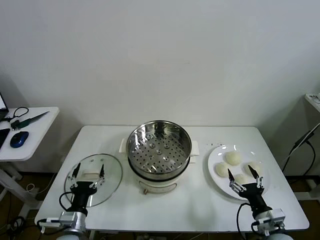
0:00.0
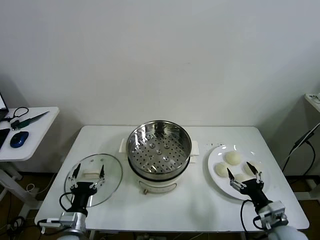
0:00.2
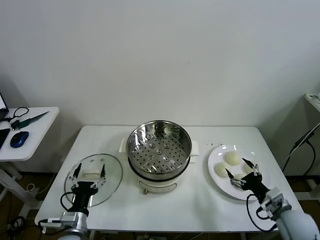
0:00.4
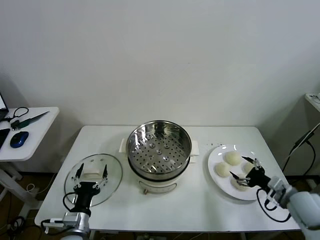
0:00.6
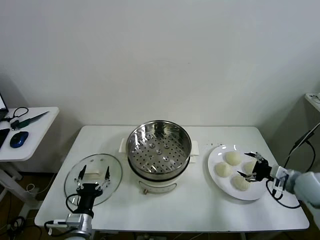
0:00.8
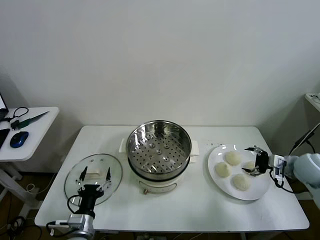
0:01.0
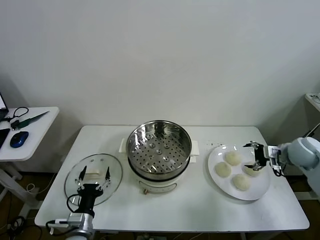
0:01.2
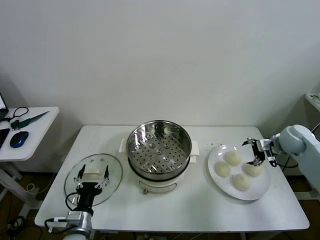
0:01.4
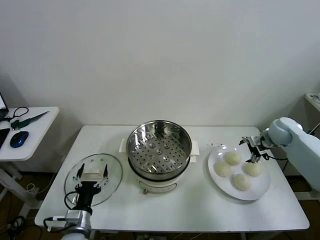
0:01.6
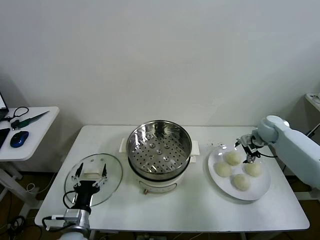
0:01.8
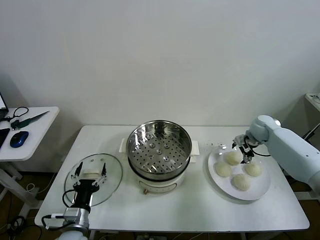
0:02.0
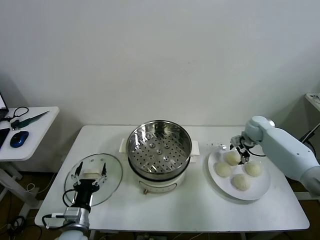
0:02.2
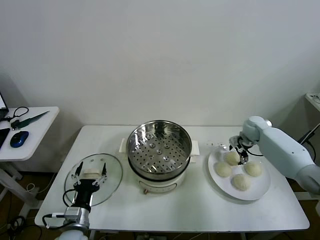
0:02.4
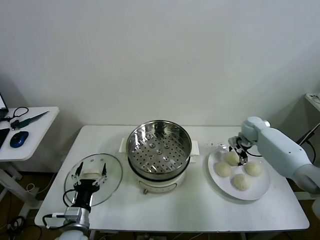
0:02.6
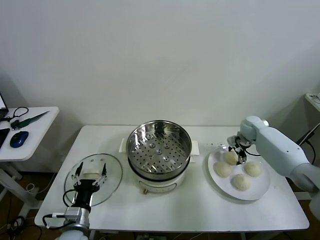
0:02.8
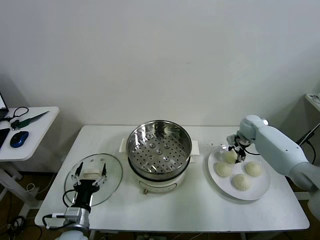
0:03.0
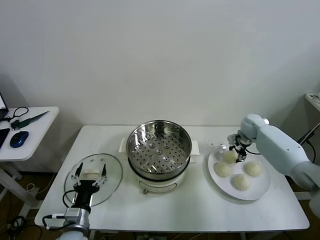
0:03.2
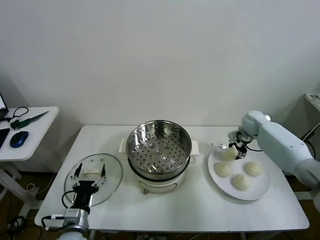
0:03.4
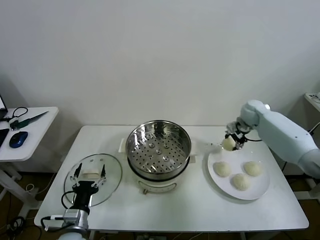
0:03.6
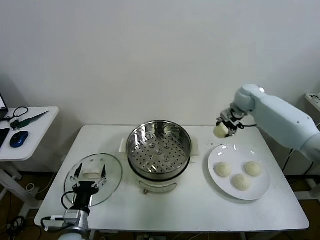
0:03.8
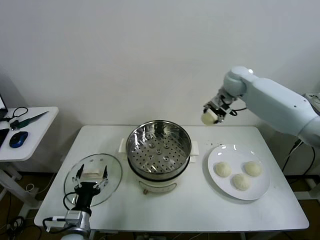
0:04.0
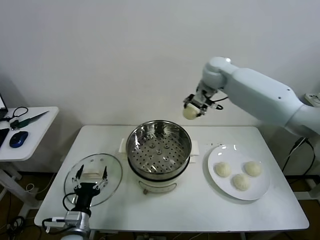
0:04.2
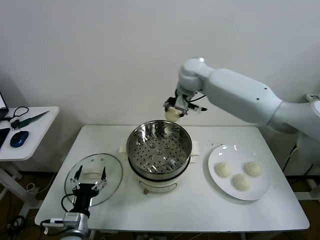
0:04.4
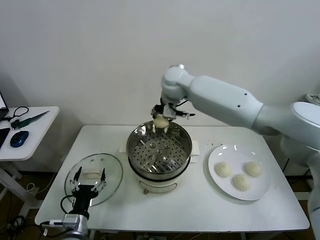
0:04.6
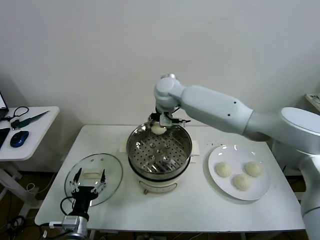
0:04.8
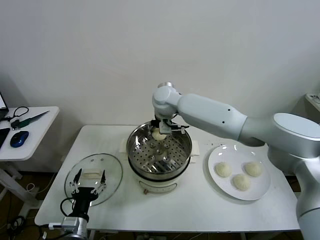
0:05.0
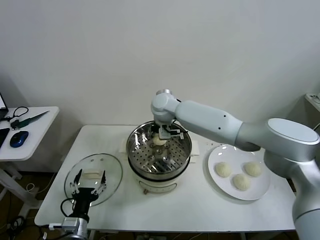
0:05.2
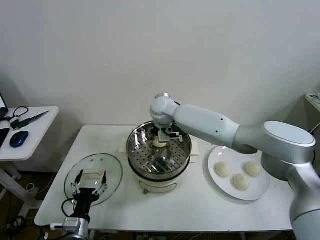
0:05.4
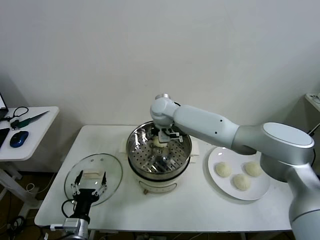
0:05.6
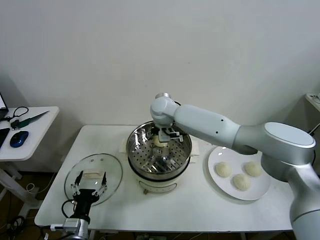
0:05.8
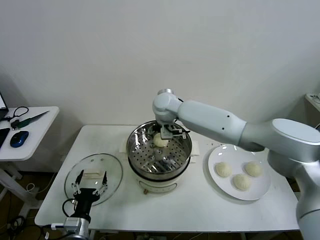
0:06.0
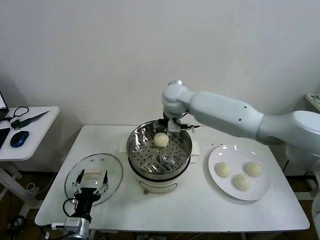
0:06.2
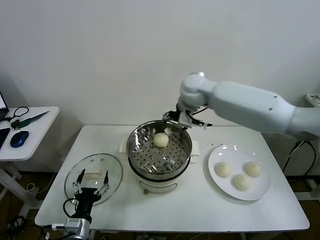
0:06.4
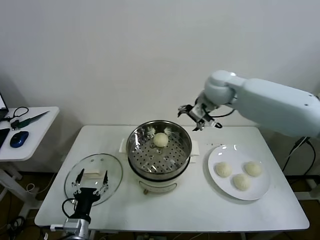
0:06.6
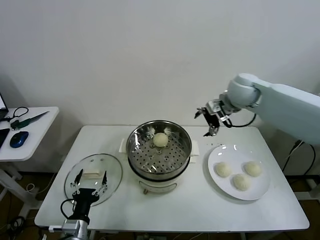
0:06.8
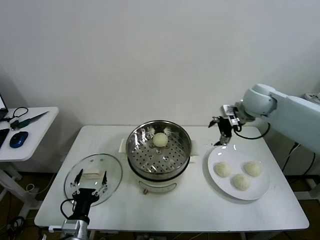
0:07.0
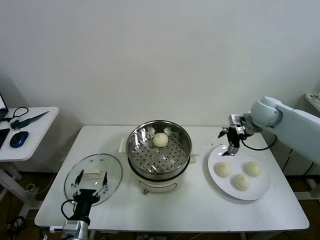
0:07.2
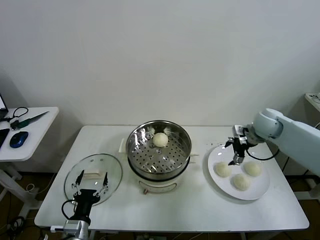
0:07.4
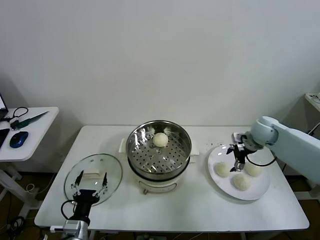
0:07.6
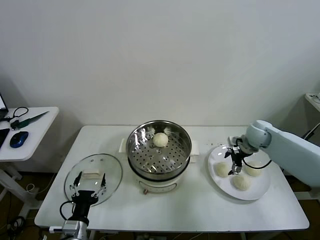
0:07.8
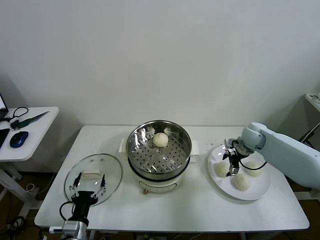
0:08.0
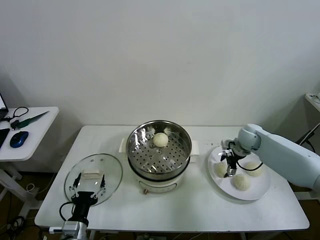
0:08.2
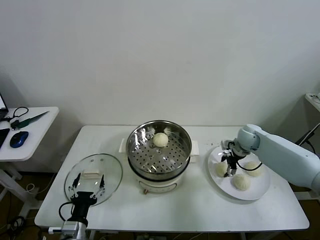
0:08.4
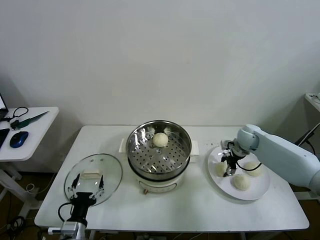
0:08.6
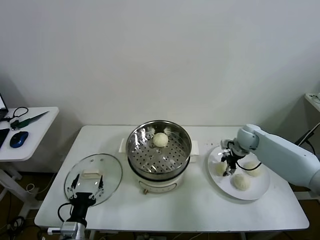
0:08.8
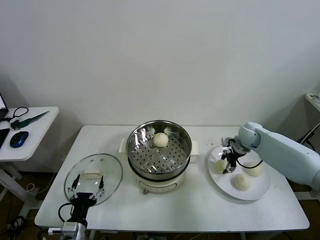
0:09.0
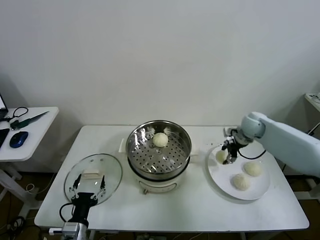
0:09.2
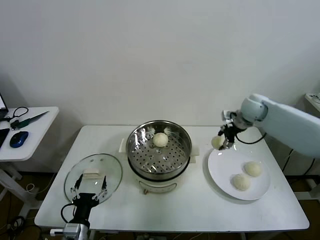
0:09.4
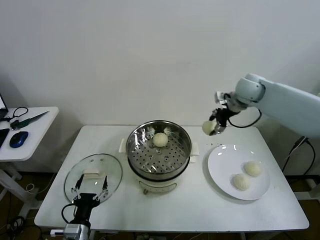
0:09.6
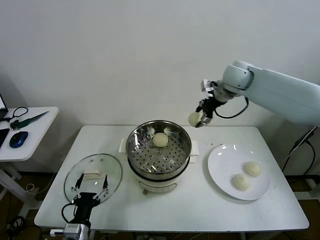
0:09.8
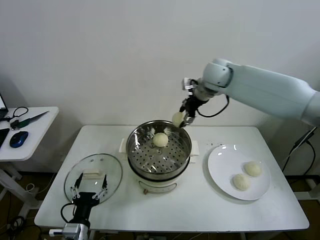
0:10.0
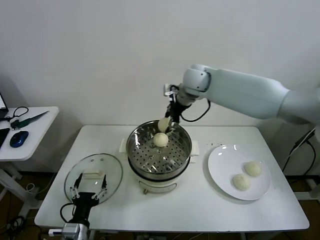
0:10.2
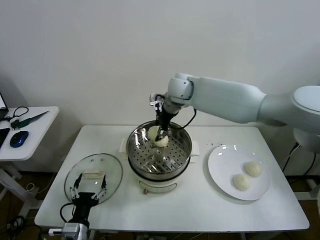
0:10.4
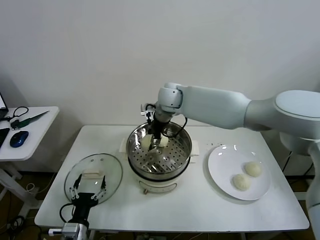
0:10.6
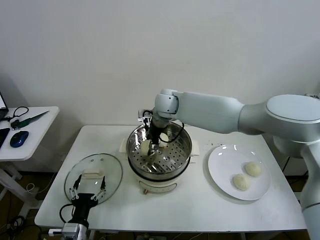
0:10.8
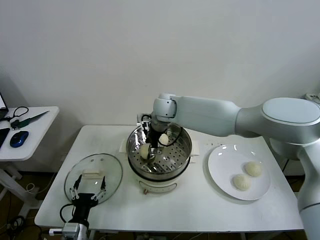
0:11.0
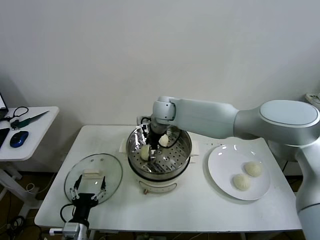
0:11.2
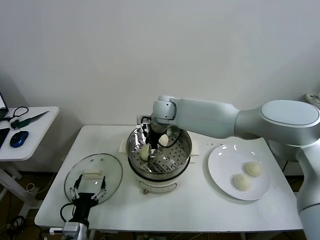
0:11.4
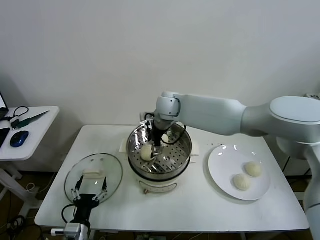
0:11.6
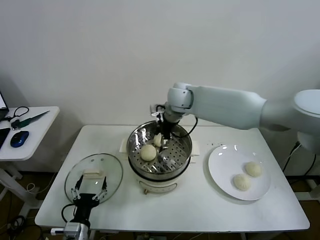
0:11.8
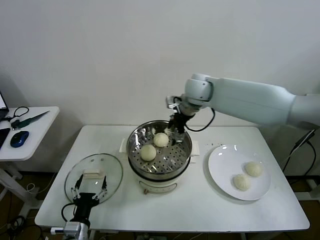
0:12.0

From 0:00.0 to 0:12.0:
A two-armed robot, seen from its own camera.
Task of the whole recording: take steamed baozi put them in steamer then cover it.
Step, from 0:00.0 to 0:03.0: Grasp the baozi in the plate with right gripper.
Step, from 0:03.2 to 0:05.6: Place the baozi on the steamer with right gripper.
Step, from 0:06.0 to 0:08.4: Grasp the baozi in the plate with right gripper.
Step, from 0:08.6 to 0:11.4: Place the baozi on the steamer with right gripper.
From 0:01.6 to 0:03.0: The right gripper goes roughly 5 cm forward, and closes up.
From 0:03.0 to 0:04.4: The right gripper goes about 40 cm to the left and upward.
From 0:04.4 to 0:06.0: The right gripper goes approximately 5 cm downward, and opens.
From 0:06.0 to 0:07.6: The right gripper is displaced to the right by some 35 cm.
From 0:07.6 to 0:09.0: The right gripper closes its fingers.
From 0:09.0 to 0:10.4: The right gripper moves to the left and upward, about 35 cm.
From 0:10.4 to 0:12.0: The right gripper moves to the right, some 10 cm, and opens up.

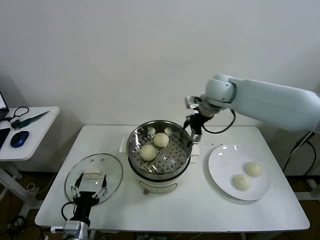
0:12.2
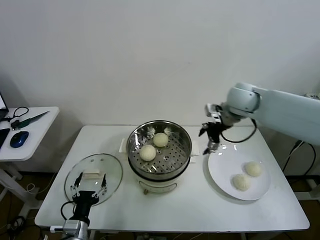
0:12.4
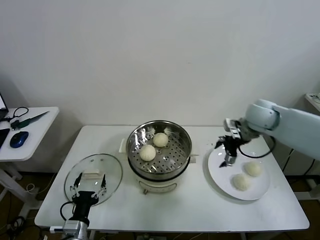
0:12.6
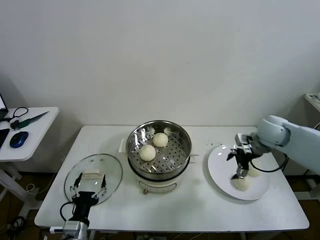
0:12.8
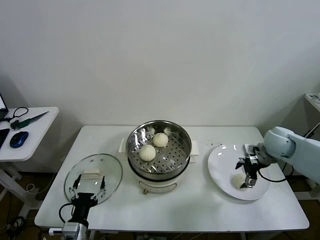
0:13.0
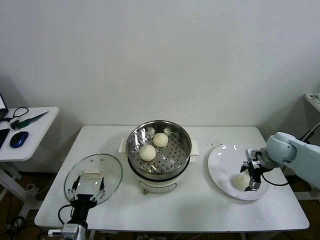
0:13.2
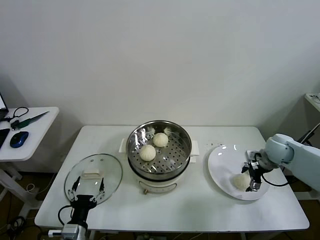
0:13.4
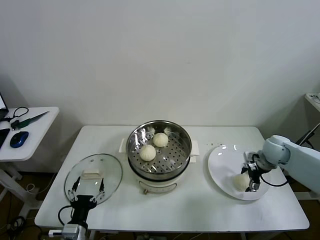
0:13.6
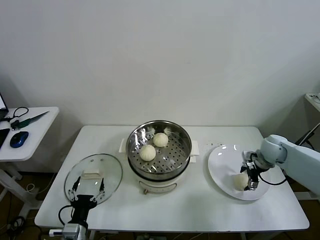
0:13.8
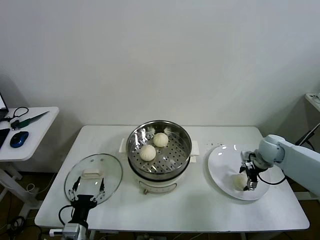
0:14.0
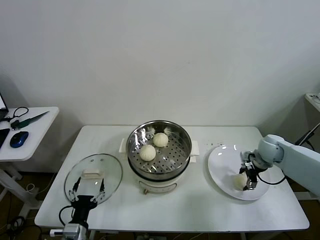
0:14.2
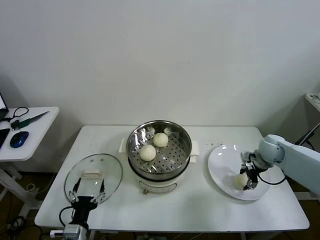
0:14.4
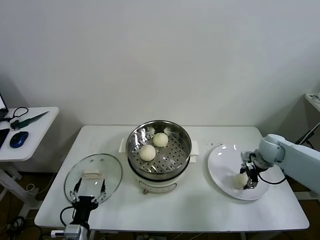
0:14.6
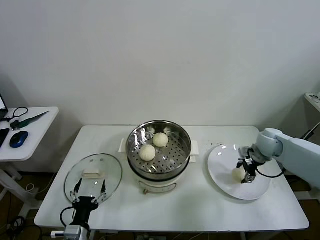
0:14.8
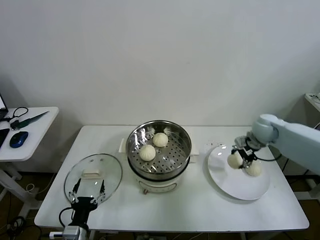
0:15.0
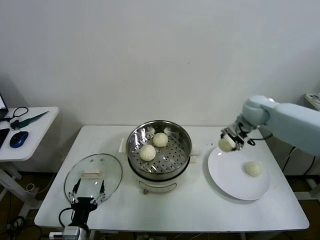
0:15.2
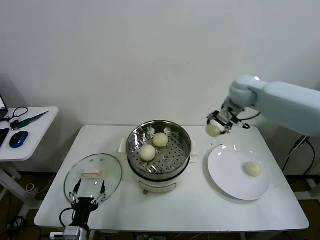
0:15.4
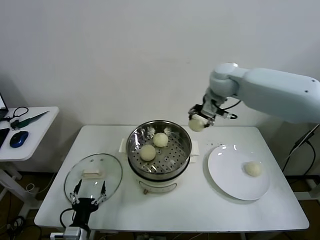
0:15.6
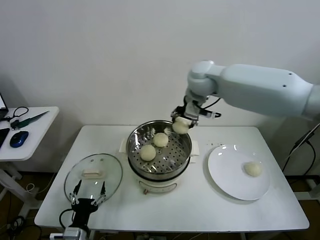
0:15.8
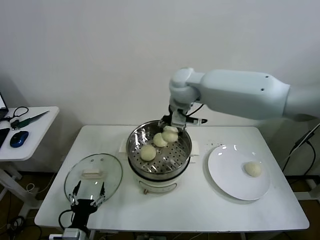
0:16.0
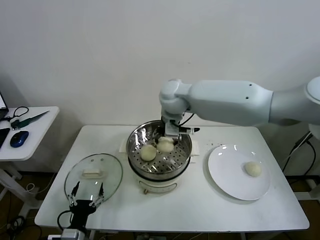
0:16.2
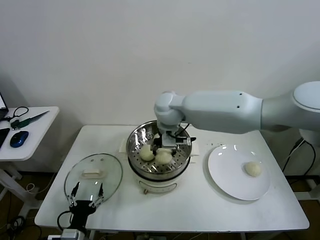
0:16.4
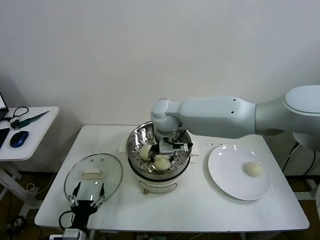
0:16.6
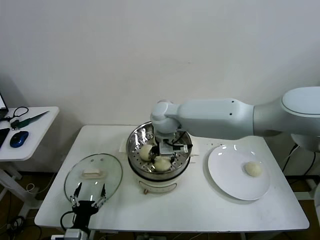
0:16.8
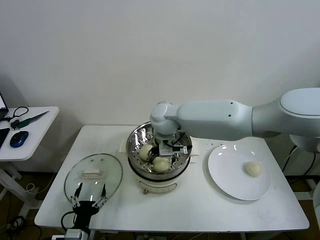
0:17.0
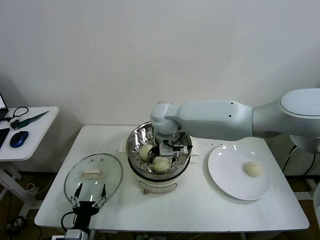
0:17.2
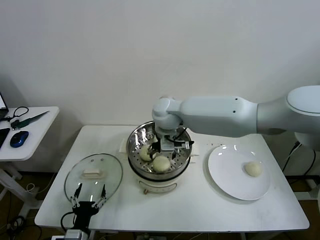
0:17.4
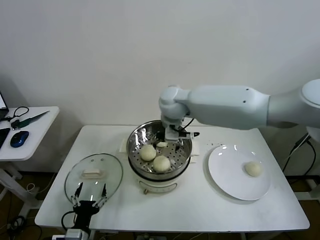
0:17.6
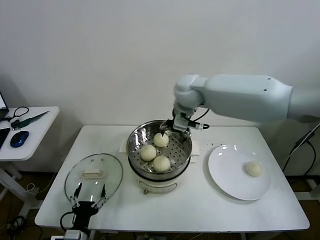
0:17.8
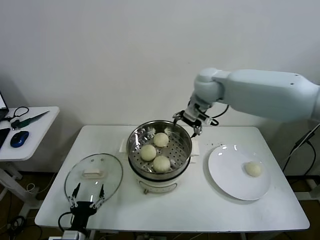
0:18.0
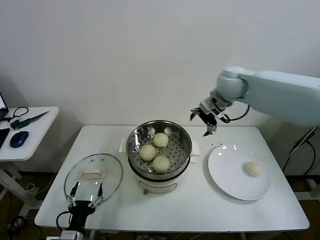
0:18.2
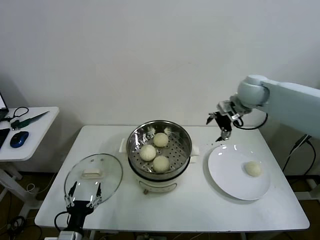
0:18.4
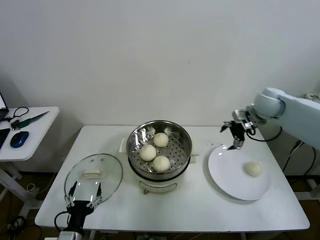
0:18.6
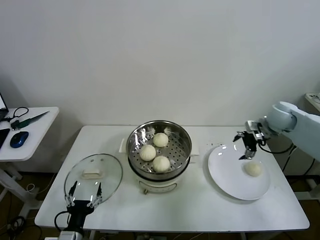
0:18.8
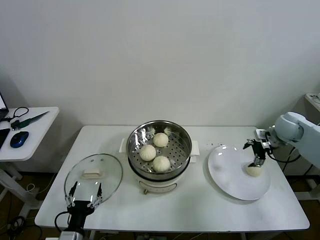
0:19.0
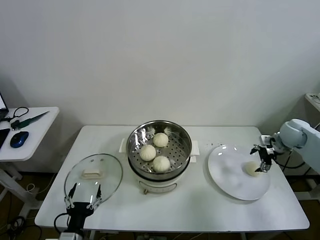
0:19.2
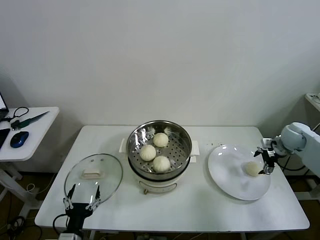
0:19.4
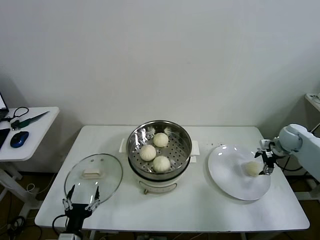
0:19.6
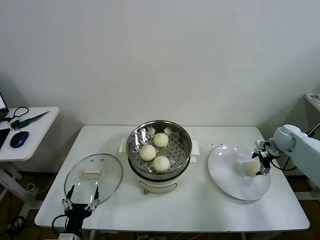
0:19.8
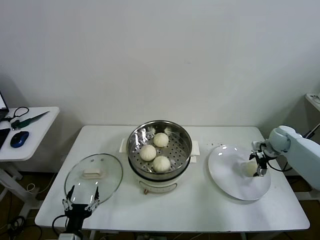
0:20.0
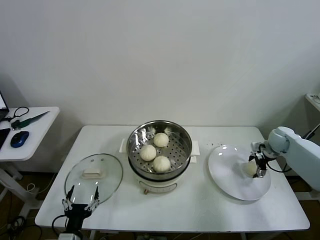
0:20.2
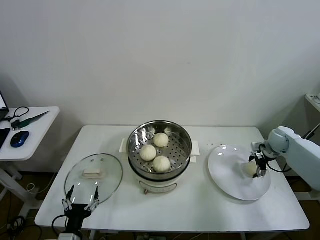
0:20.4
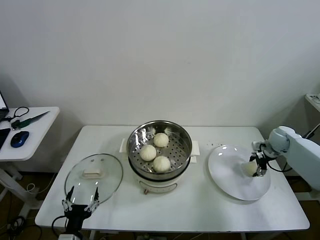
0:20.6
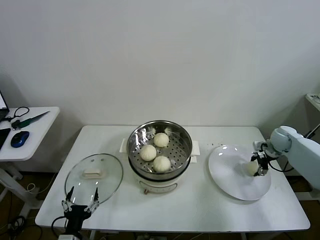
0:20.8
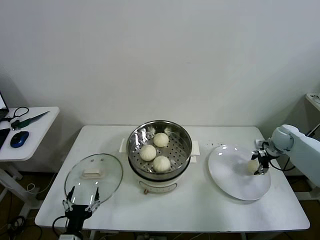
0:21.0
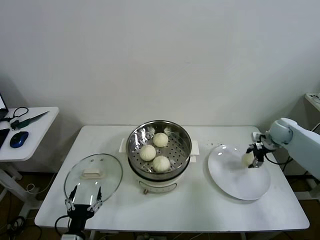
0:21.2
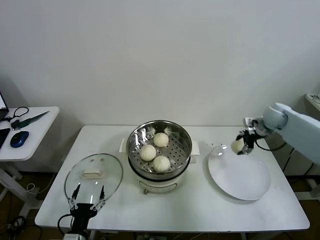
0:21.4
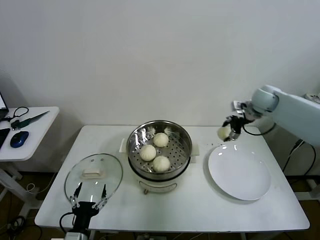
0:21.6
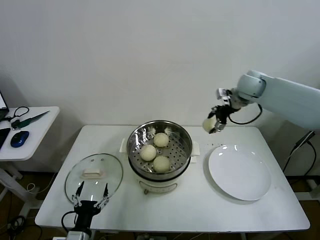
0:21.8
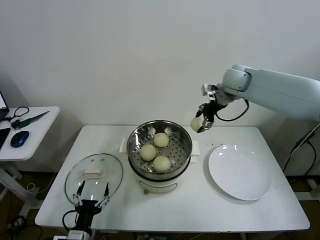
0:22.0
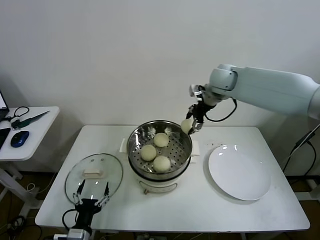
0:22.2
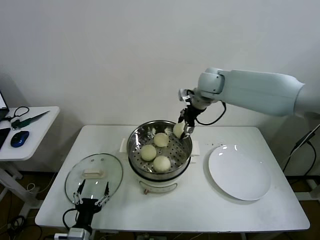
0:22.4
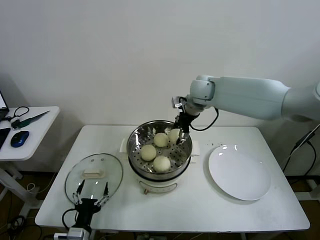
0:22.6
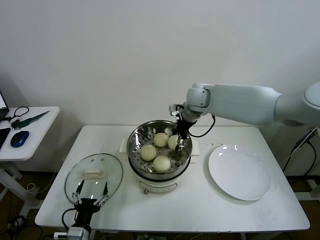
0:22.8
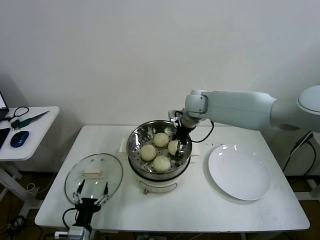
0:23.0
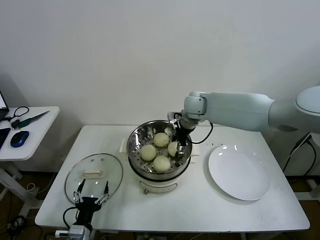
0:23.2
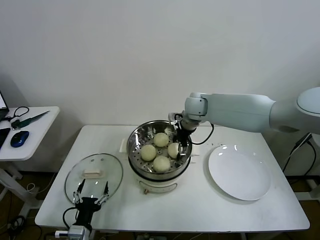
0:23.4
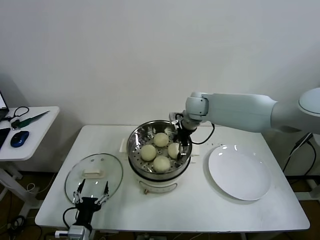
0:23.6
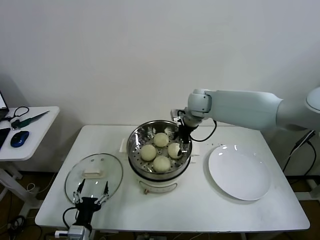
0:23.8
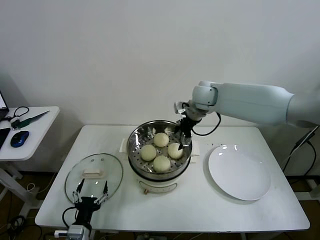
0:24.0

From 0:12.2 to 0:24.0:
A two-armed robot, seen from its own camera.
Task of the whole recording: take steamed baozi put them in steamer then cover it.
Step, from 0:12.2 to 0:14.2: Grasp the baozi in the plate with right gripper.
Step, from 0:14.4 to 0:17.0: Place the baozi on the steamer with right gripper.
Step, from 0:17.2 to 0:20.6: Grasp the baozi in the plate with right gripper.
Step, from 0:20.8 to 0:23.6: Place the baozi on the steamer with right gripper.
From 0:12.2 to 0:13.6: The right gripper moves to the right and downward, approximately 30 cm.
From 0:13.6 to 0:15.2: The right gripper shifts some 20 cm upward, to the left and forward, and closes.
From 0:15.2 to 0:16.6: The right gripper goes roughly 30 cm to the left.
From 0:16.6 to 0:18.2: The right gripper is displaced to the right by some 20 cm, and opens its fingers.
From 0:18.2 to 0:19.6: The right gripper travels to the right and downward by approximately 35 cm.
From 0:19.6 to 0:21.0: The right gripper closes up.
From 0:21.0 to 0:22.6: The right gripper moves to the left and upward, some 40 cm.
From 0:22.6 to 0:24.0: The right gripper opens.
